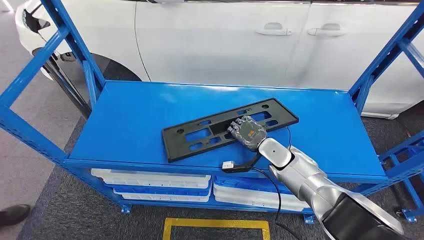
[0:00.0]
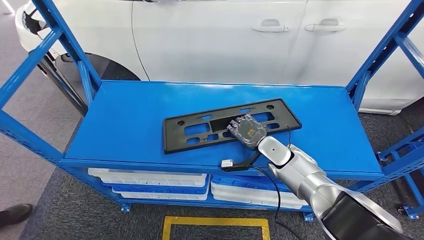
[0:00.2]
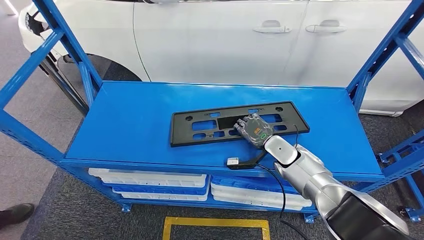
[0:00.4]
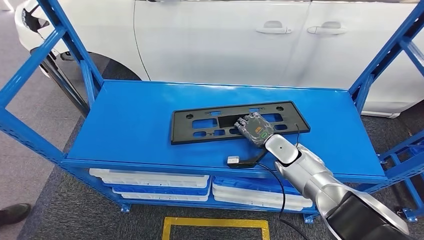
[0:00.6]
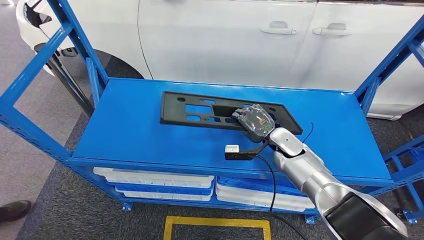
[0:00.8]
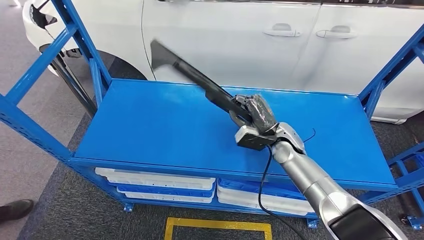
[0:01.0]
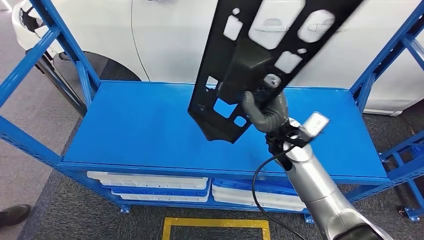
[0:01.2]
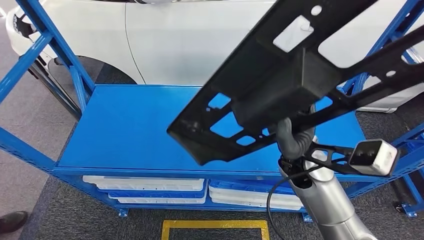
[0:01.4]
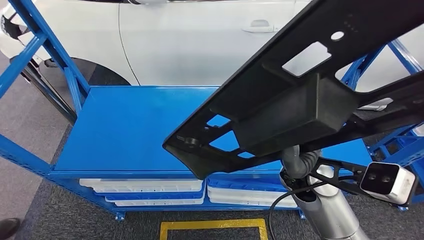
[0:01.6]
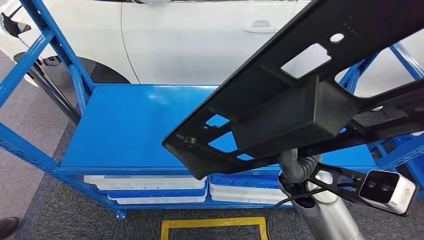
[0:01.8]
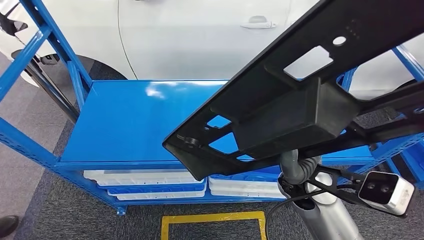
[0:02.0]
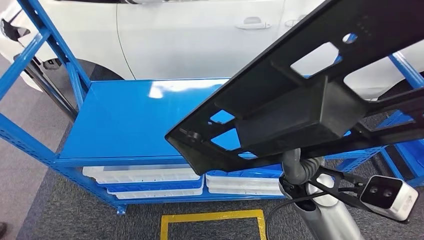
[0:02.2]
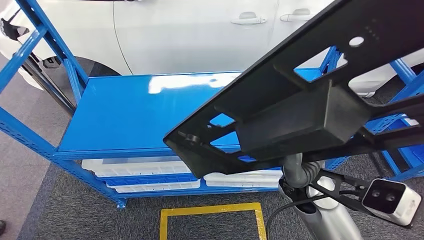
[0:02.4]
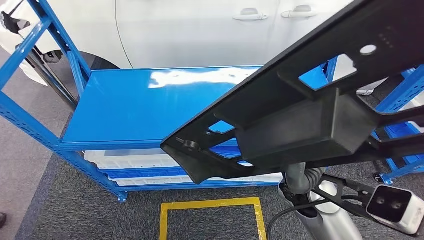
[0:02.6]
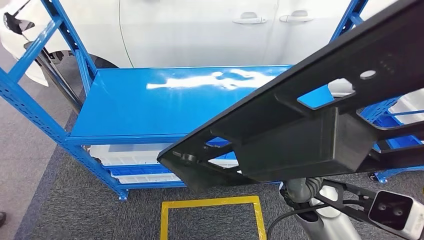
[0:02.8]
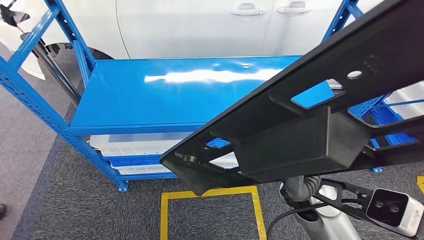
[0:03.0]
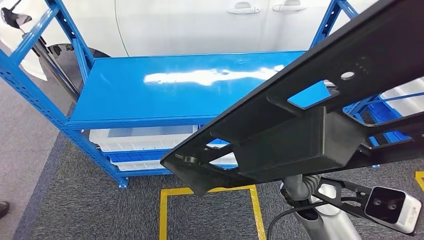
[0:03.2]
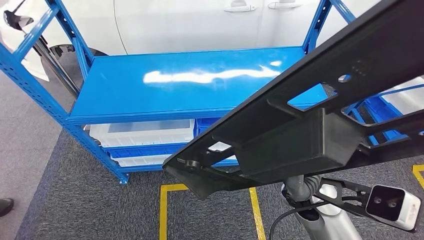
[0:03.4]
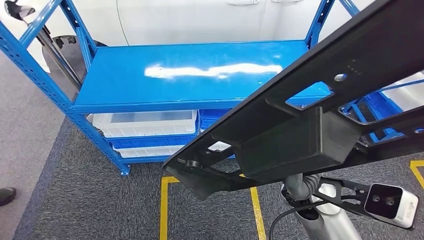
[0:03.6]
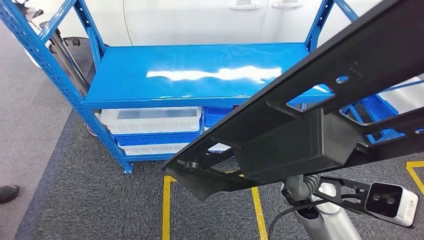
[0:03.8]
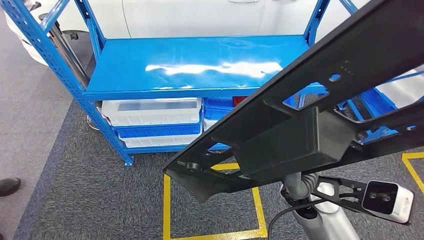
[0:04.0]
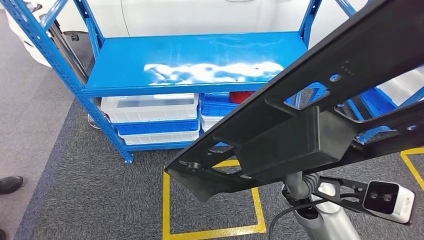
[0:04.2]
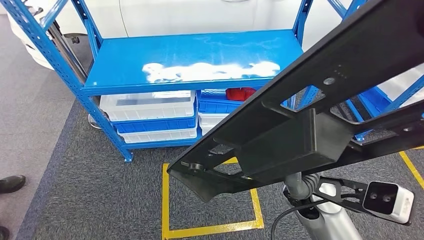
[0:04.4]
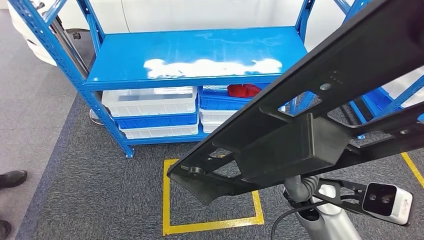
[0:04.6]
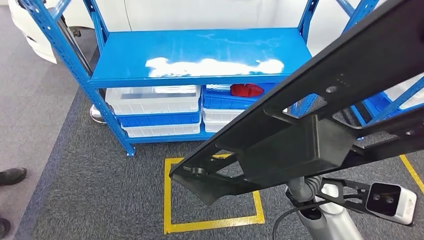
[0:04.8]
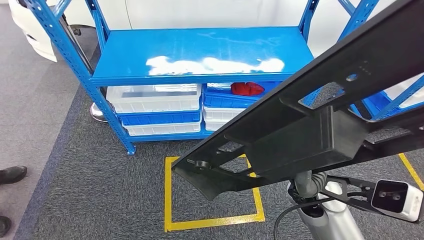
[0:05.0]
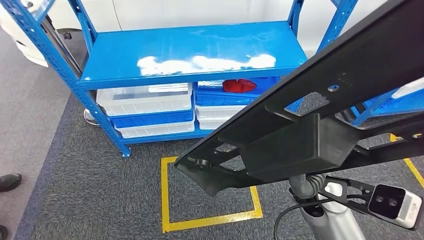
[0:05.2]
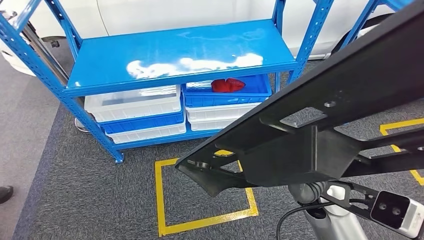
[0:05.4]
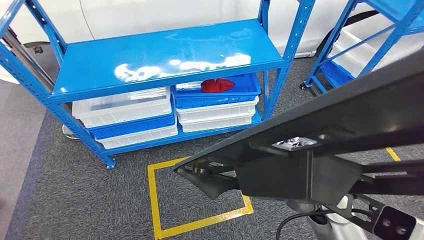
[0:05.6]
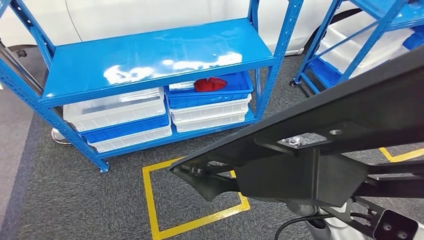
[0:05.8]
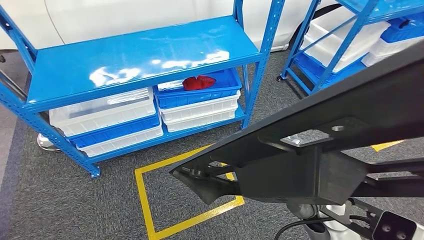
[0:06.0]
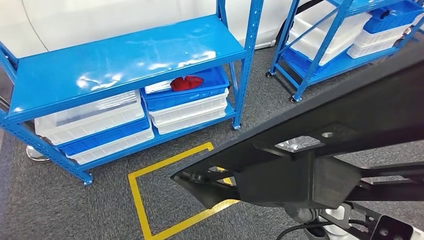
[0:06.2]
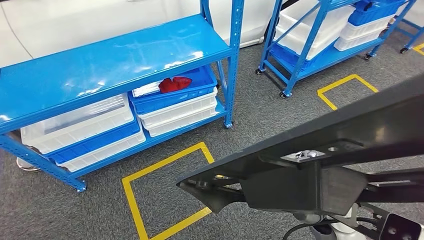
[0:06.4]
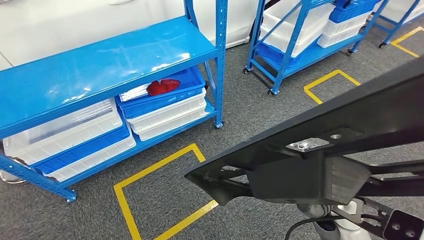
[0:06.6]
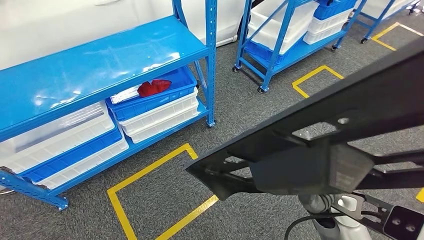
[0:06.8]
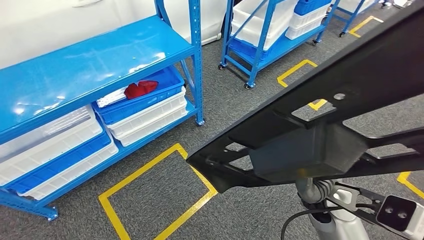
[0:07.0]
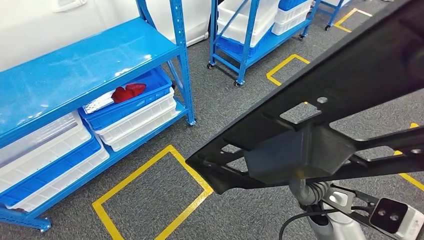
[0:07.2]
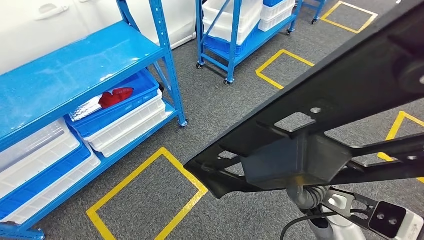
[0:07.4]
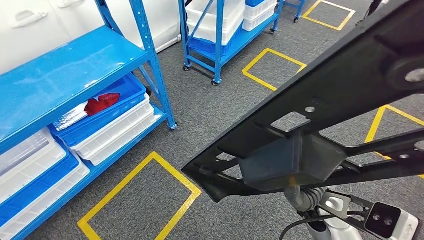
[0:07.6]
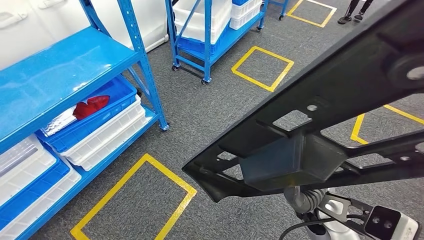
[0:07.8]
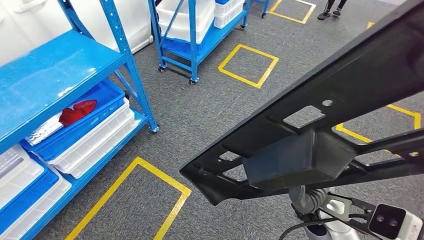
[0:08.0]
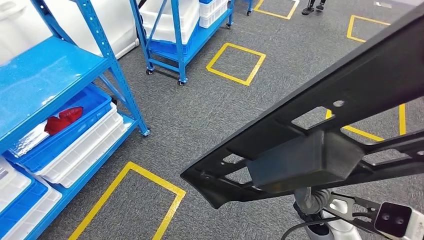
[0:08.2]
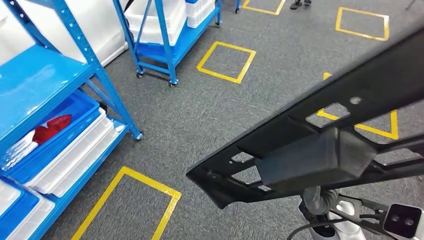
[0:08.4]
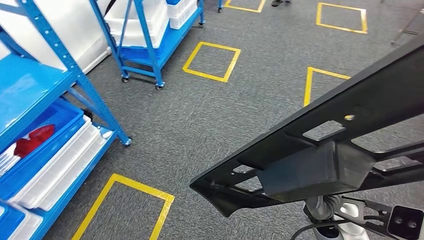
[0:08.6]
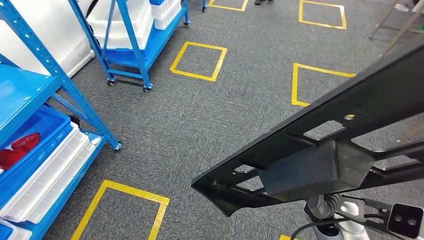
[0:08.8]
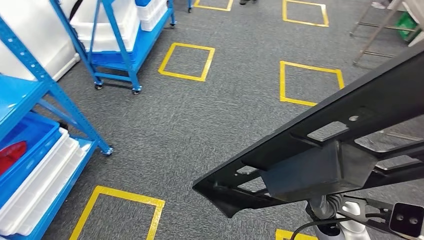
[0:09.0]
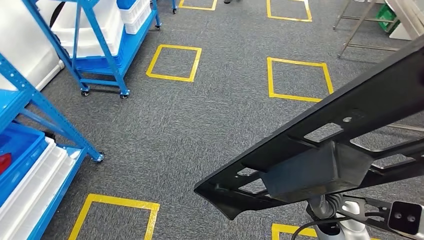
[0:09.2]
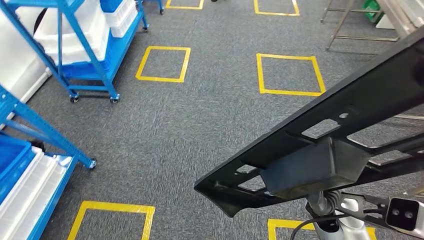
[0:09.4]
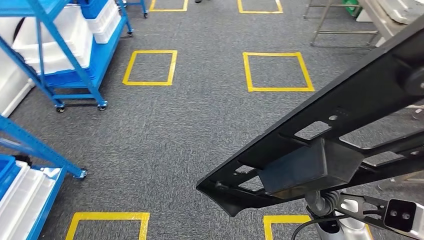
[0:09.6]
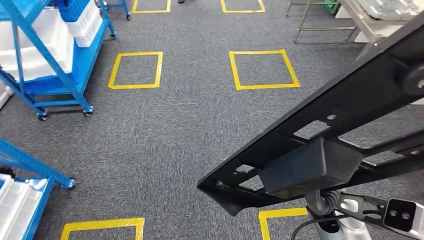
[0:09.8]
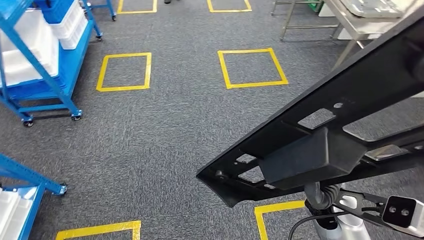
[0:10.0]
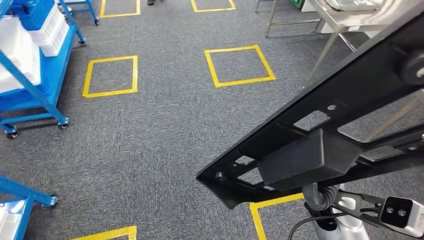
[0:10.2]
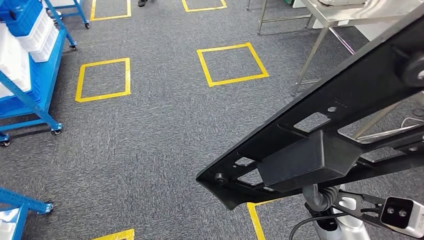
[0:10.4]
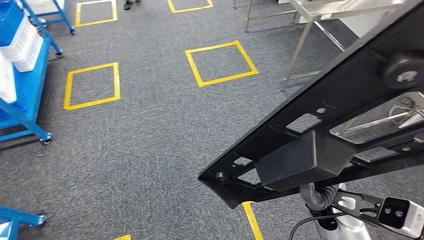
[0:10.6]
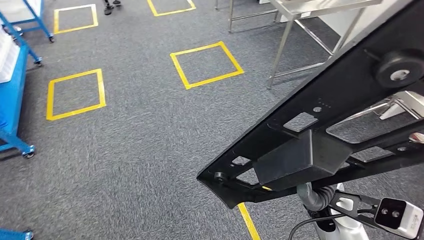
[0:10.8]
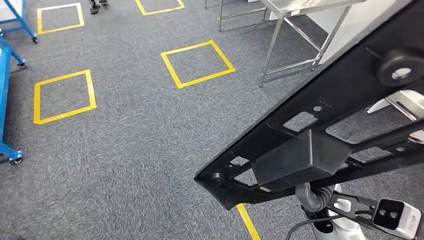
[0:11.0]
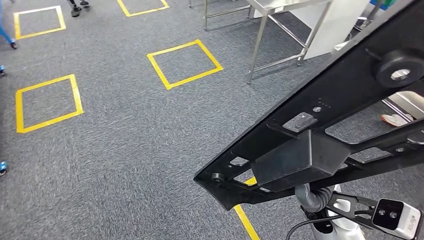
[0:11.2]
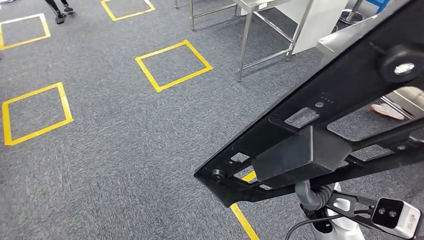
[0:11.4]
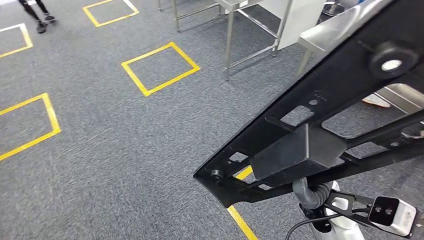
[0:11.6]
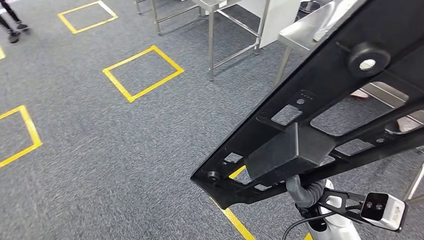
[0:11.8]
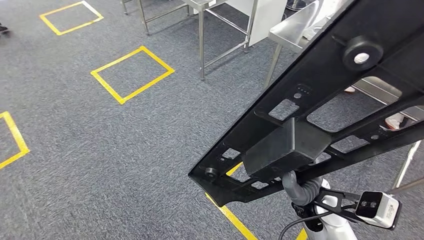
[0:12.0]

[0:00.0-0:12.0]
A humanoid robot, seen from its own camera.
Step, 0:00.0 to 0:02.6: Pick up the large material from the shelf.

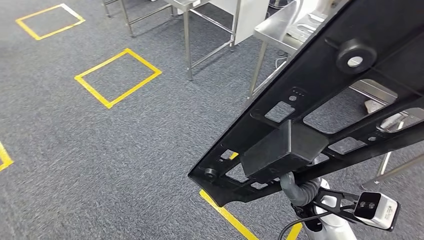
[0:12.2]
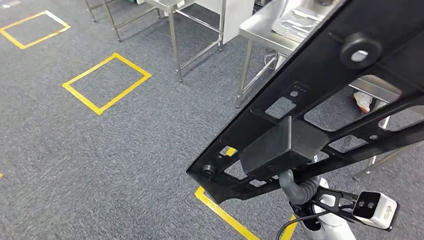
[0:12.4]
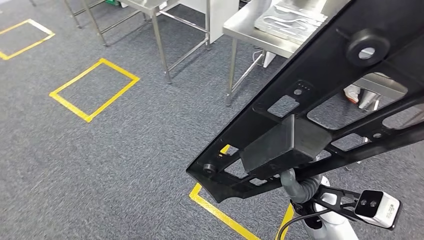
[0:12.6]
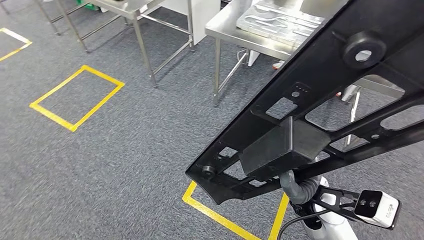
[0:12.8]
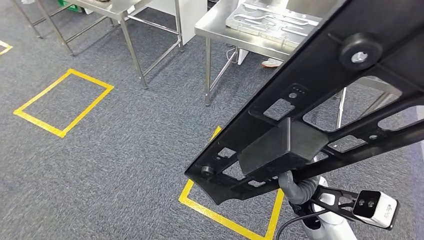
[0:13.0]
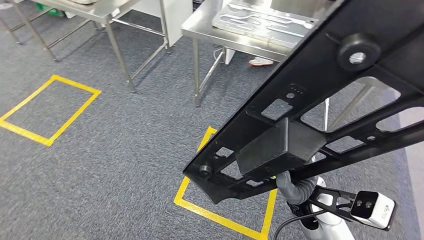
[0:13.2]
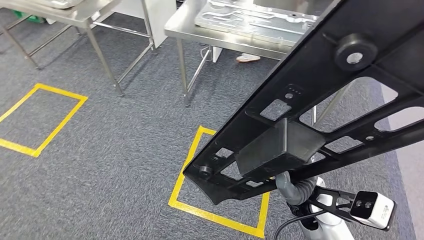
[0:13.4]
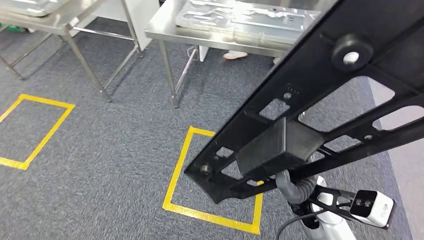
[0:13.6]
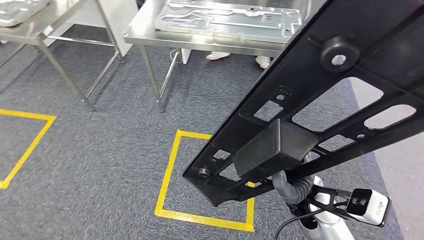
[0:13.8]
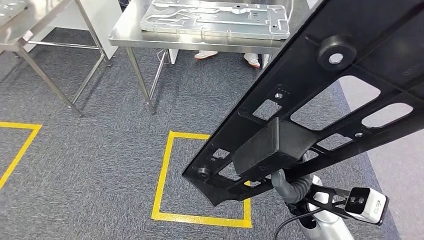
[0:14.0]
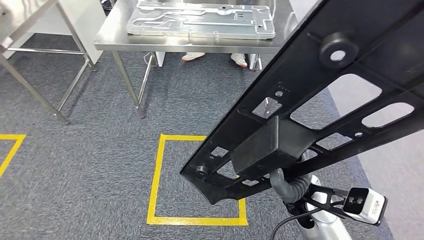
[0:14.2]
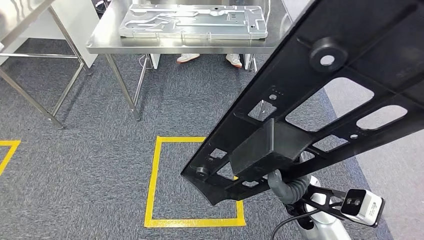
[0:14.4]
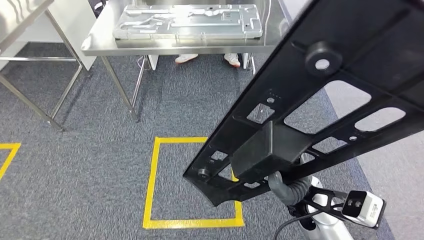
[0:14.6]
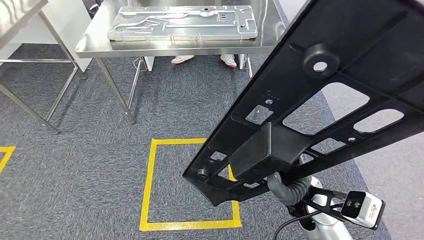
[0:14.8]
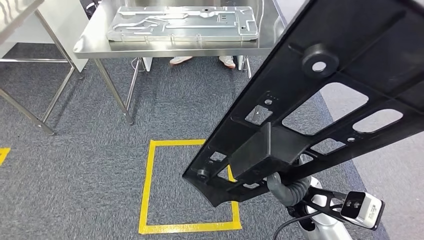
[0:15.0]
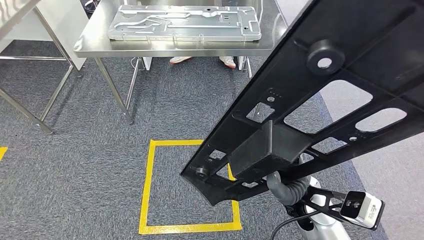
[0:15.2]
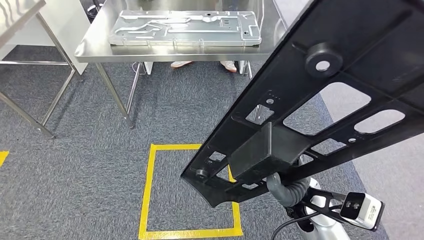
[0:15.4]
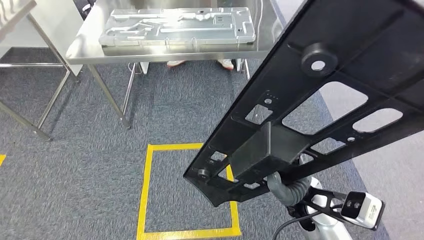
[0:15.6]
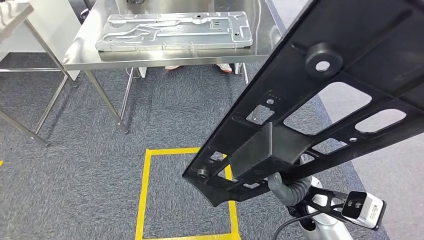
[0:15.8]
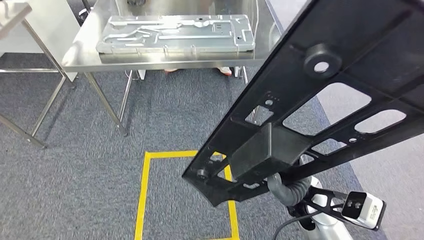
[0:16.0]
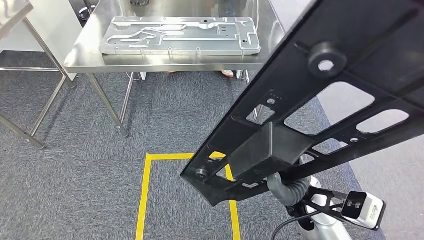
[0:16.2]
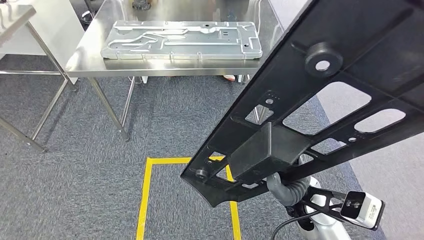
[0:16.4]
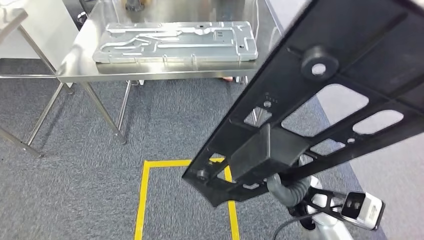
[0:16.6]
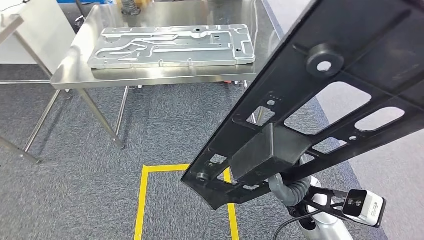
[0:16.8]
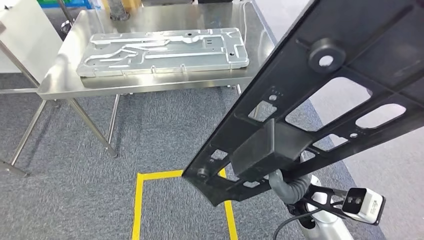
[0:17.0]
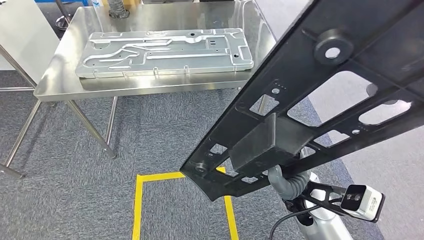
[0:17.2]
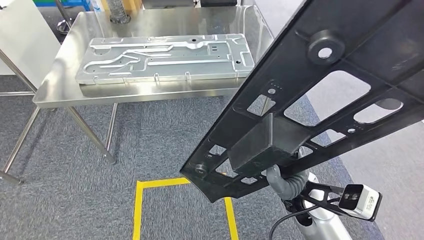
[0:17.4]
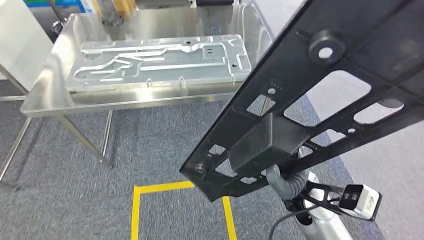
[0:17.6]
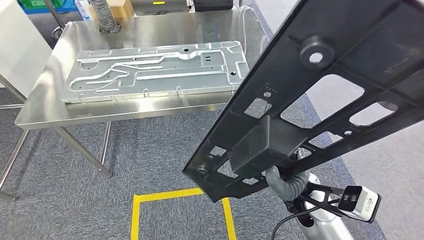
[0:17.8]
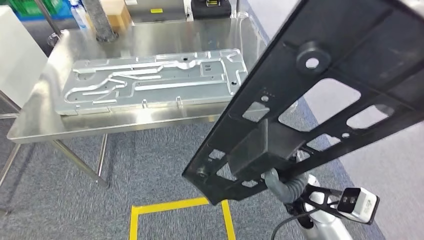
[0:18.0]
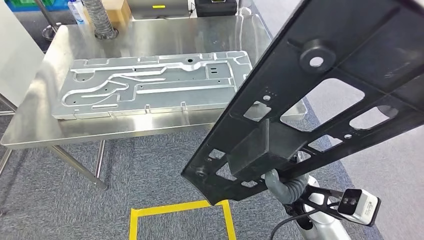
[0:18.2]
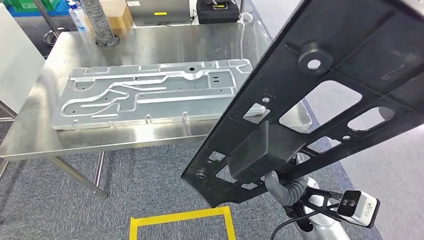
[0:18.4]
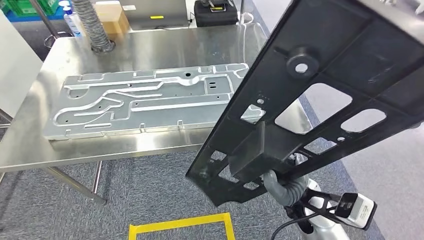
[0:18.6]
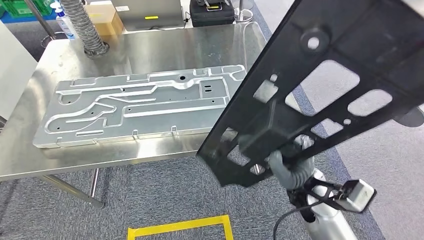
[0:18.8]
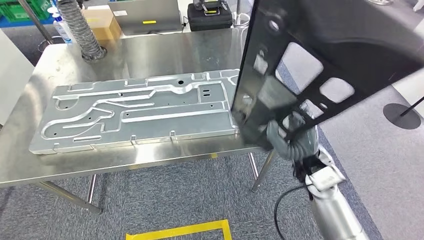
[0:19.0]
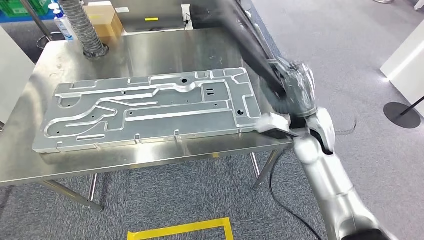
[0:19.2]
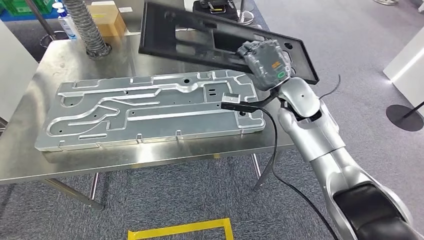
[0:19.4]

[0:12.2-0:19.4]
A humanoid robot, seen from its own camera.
Step, 0:12.2 to 0:18.0: Move the large material to the workbench.
